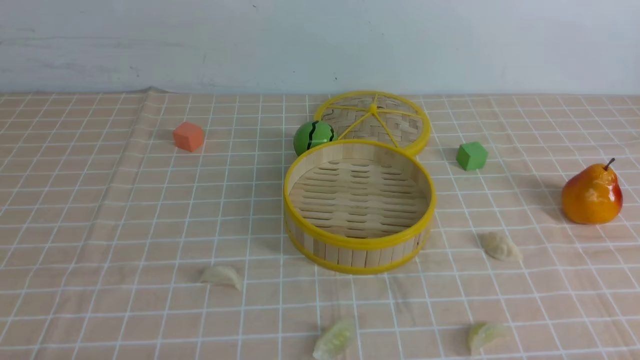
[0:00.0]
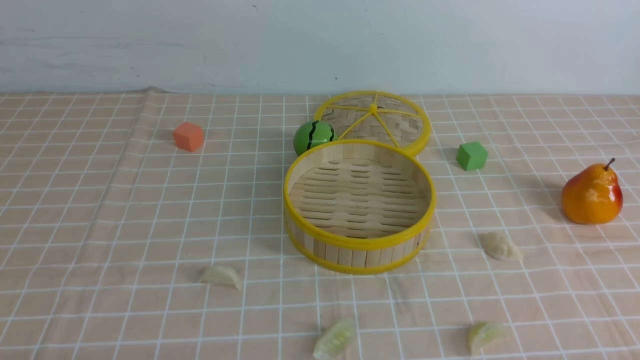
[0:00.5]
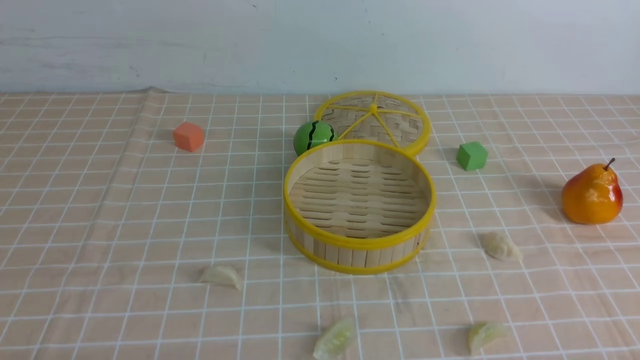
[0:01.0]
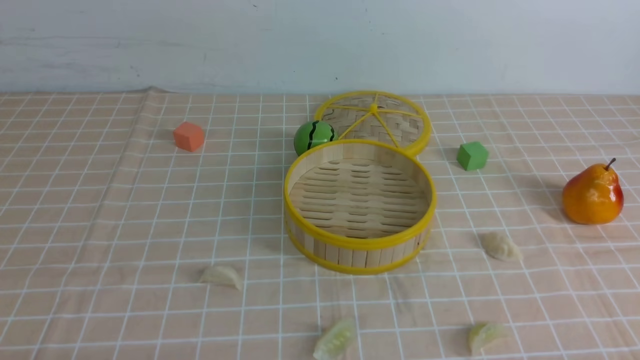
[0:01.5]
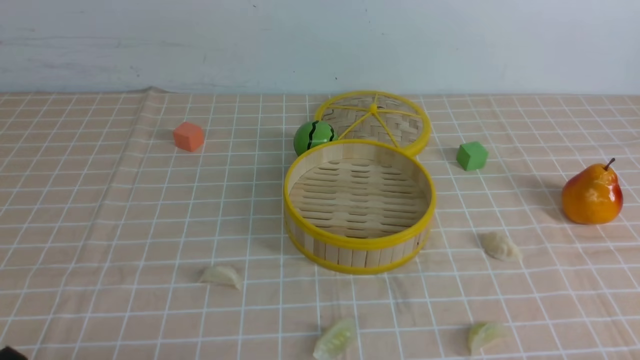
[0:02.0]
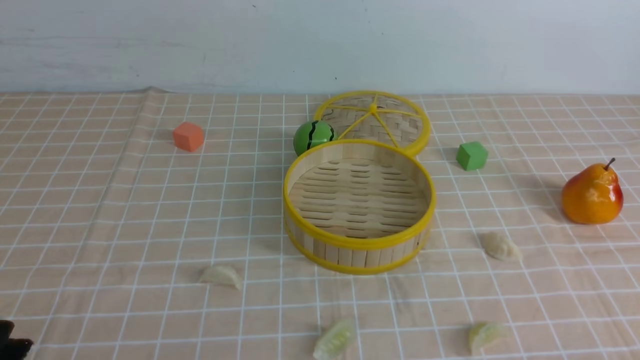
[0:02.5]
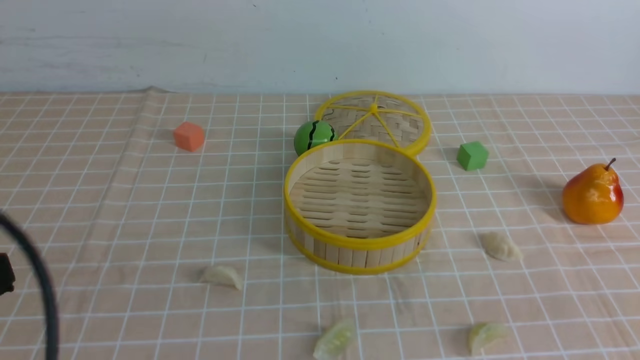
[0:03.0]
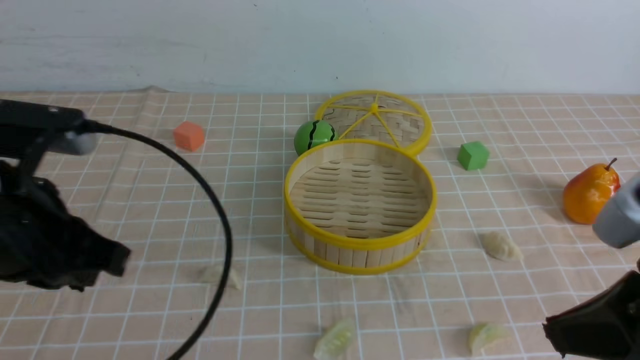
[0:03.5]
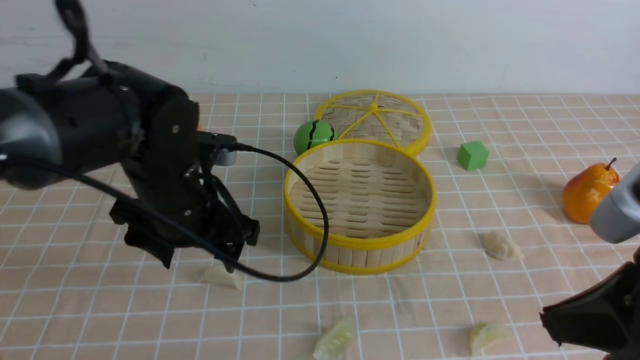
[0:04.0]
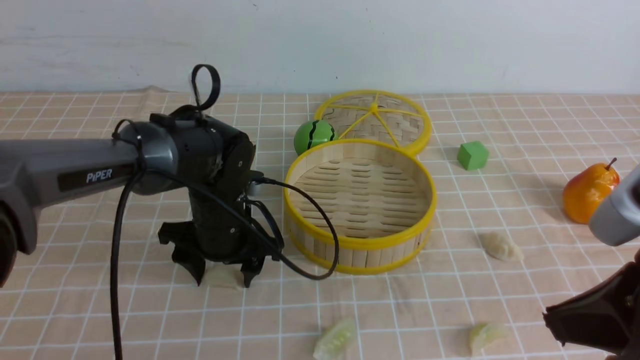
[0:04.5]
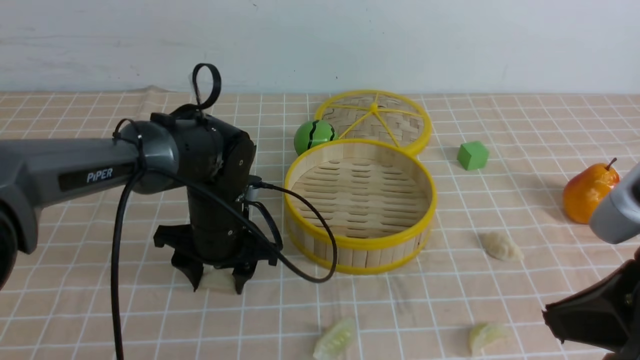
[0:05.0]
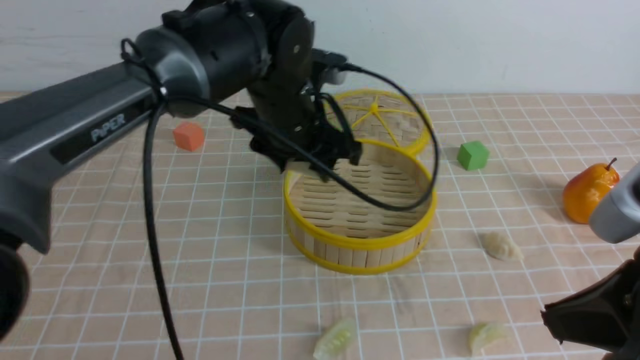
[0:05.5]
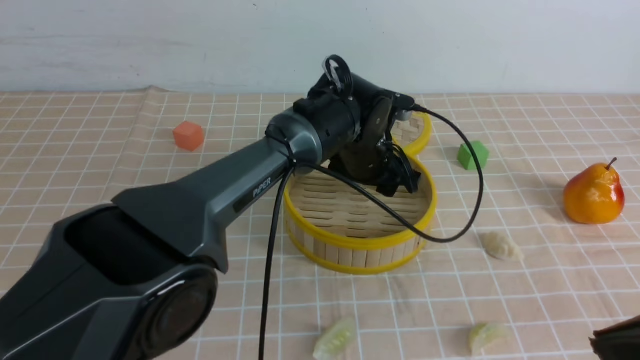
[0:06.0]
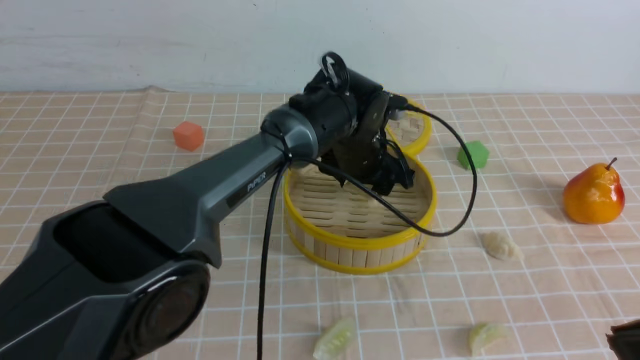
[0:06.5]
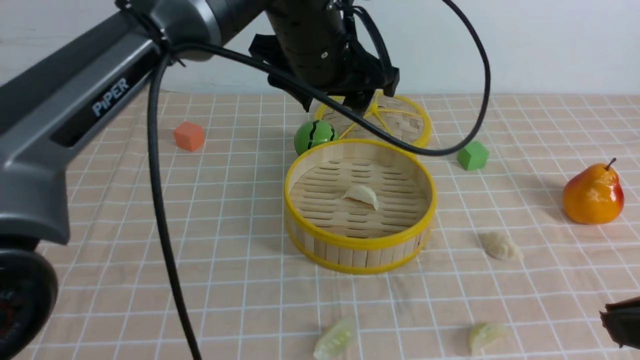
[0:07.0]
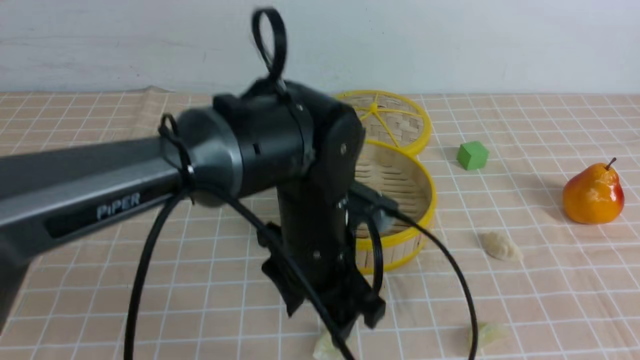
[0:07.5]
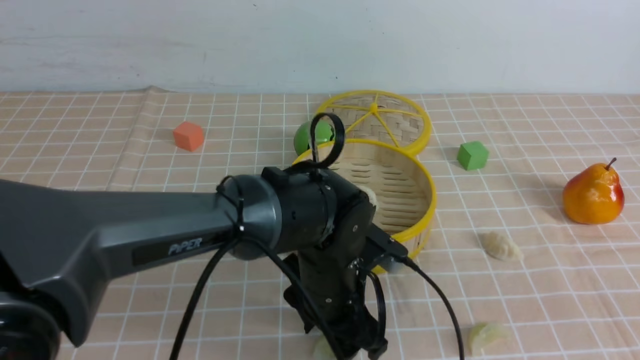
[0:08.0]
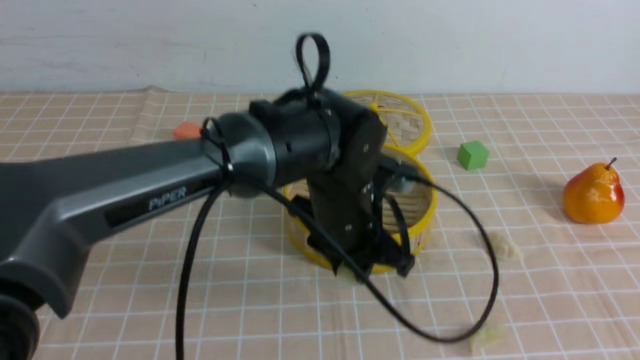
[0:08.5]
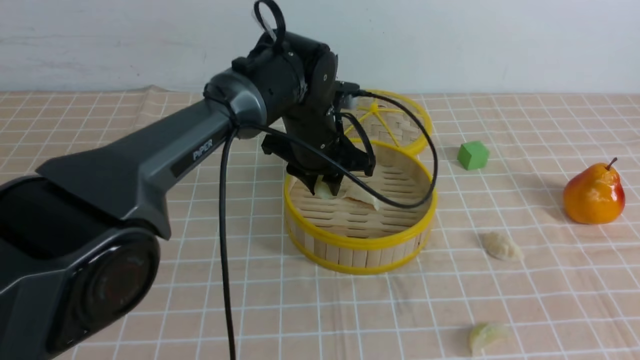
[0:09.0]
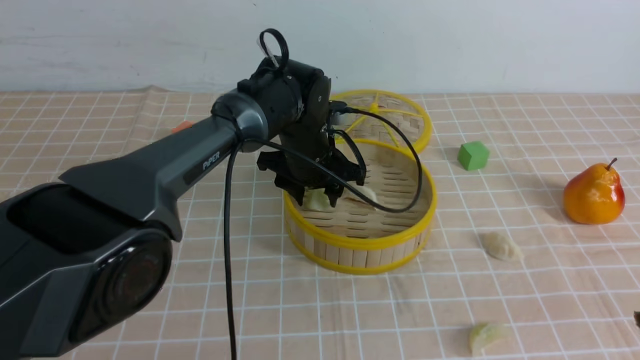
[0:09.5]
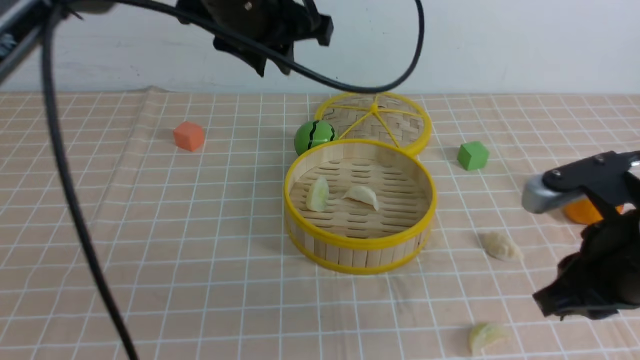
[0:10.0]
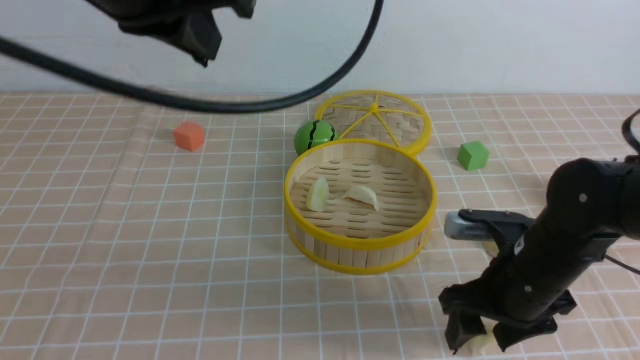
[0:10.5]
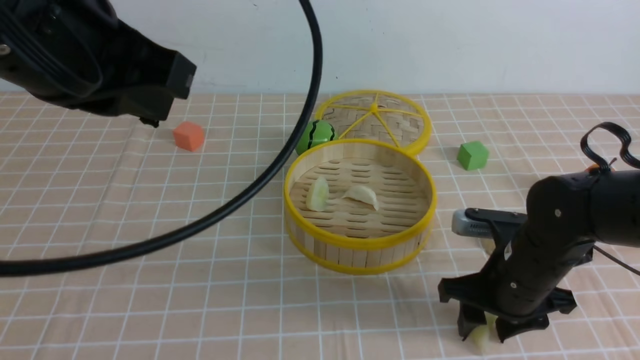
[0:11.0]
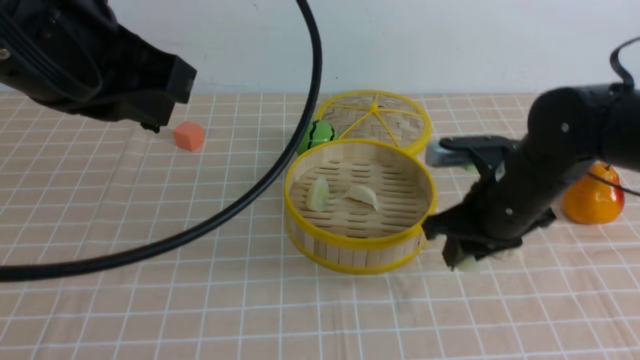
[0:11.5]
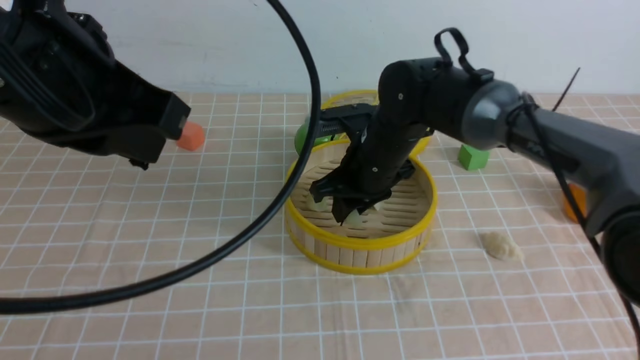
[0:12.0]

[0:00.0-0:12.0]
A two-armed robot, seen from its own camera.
Task of the whole recording: put the dumplings into the steamer on the table with the brown tablecloth.
Step, 0:00.0 to 0:04.5: use the left arm to grab a dumpling.
Step, 0:05.0 to 0:06.5: use the left arm to put the dumpling into the steamer.
Step, 0:07.0 to 0:08.0: use the left arm to grab a dumpling.
Step, 0:08.5 to 0:09.5: use the left arm to put the dumpling into the steamer.
Step, 0:10.0 to 0:11.0: use the right arm to grab a dumpling.
0:02.0 to 0:04.0: The right gripper goes about 20 cm upward, forward and to the left, and closes up; the left gripper moves forward and to the right, some 30 cm, and opens.
0:04.0 to 0:06.0: The left gripper moves to the right and forward, about 20 cm.
0:06.0 to 0:08.0: The left gripper shifts roughly 15 cm backward, and reaches approximately 15 cm upward, then returns.
0:08.0 to 0:10.0: The left gripper goes some 25 cm upward, and closes; the right gripper goes roughly 15 cm forward and downward.
0:10.0 to 0:12.0: The right gripper heads forward and to the left, covering some 25 cm, and opens and closes again; the left gripper travels backward and to the left by roughly 20 cm, and closes its fingers.

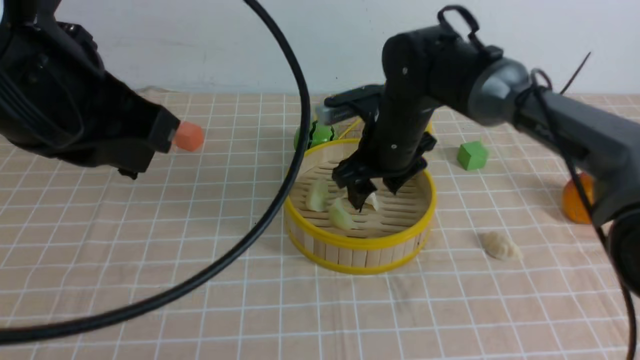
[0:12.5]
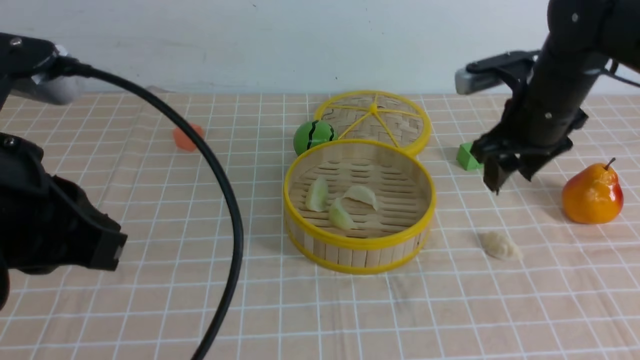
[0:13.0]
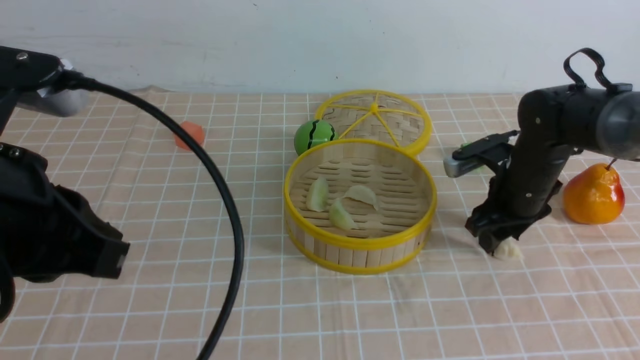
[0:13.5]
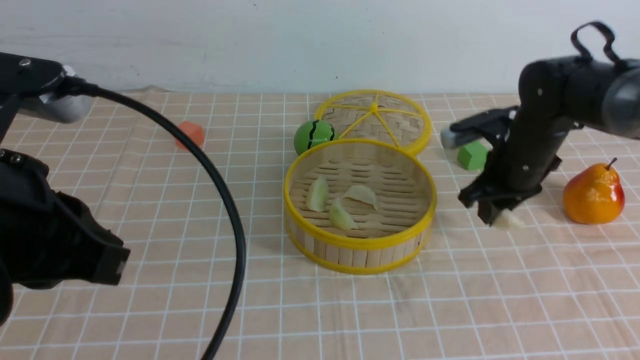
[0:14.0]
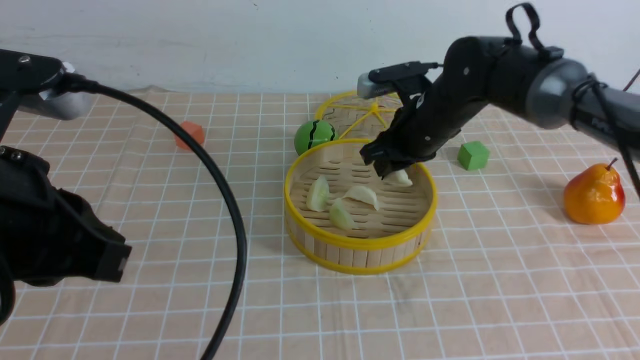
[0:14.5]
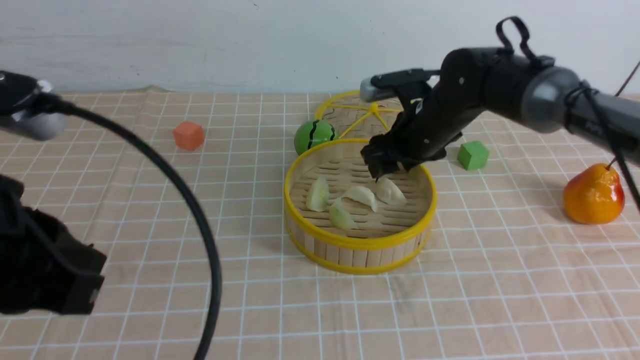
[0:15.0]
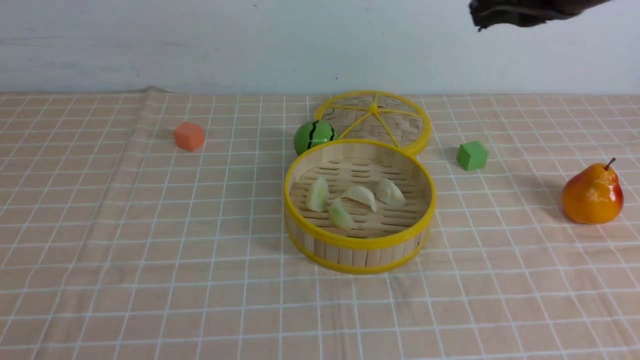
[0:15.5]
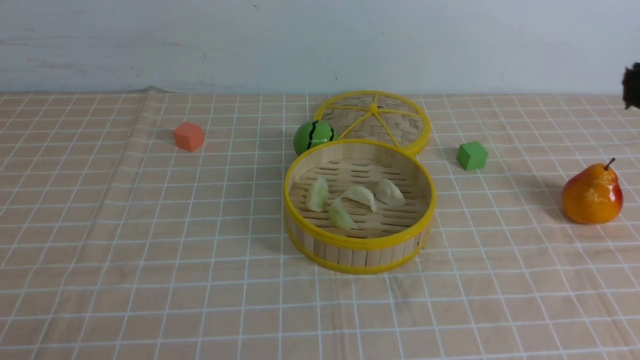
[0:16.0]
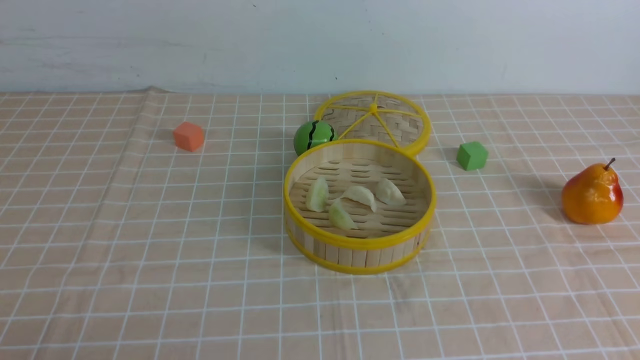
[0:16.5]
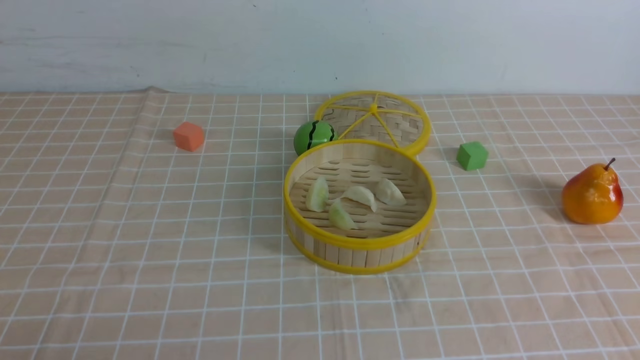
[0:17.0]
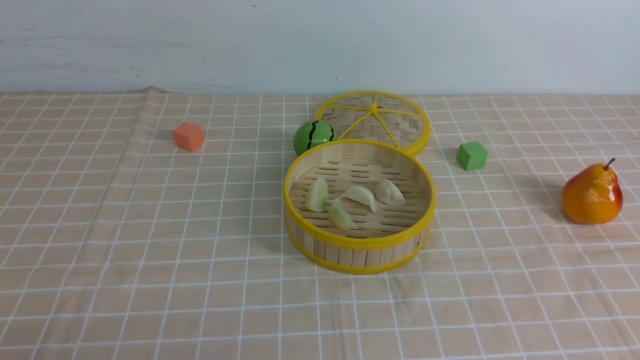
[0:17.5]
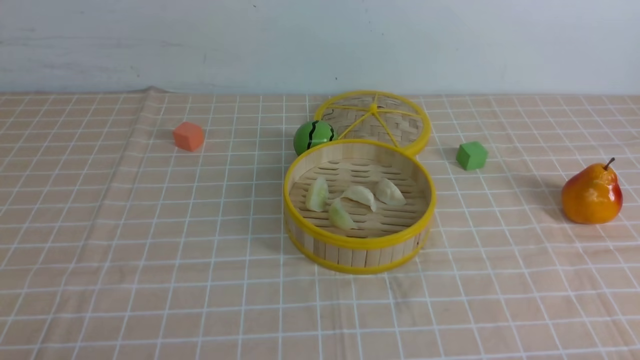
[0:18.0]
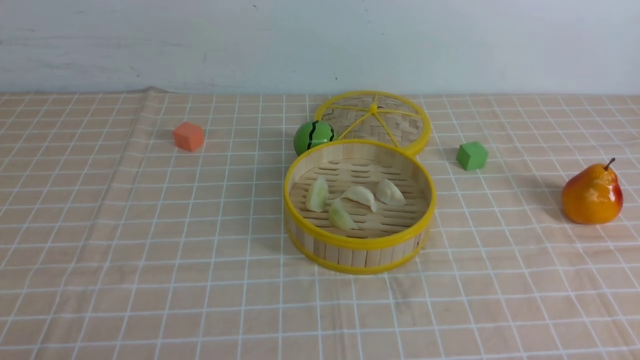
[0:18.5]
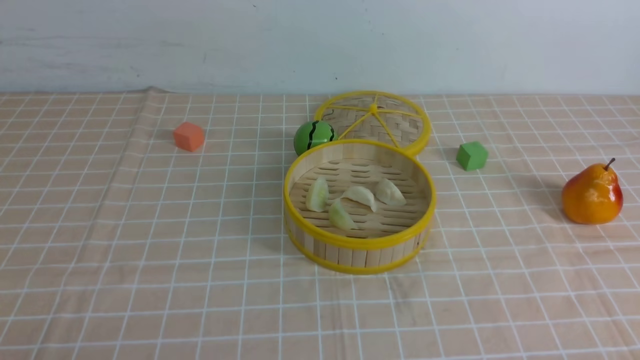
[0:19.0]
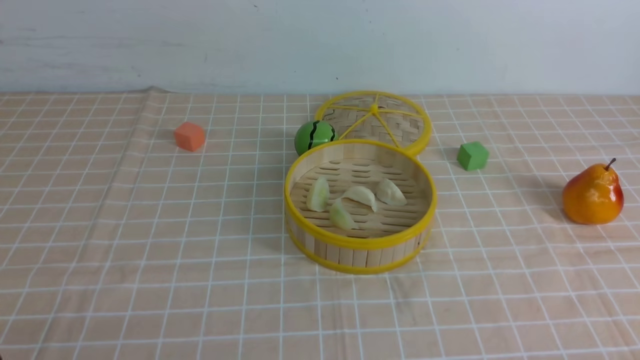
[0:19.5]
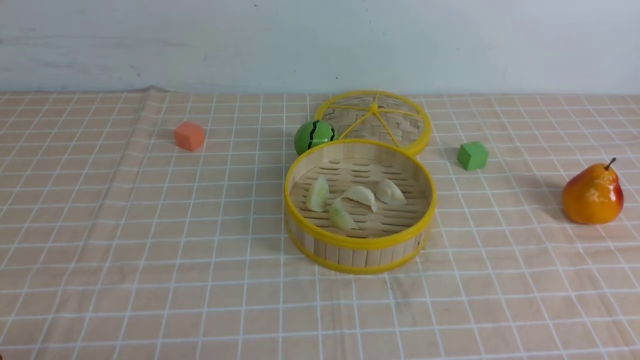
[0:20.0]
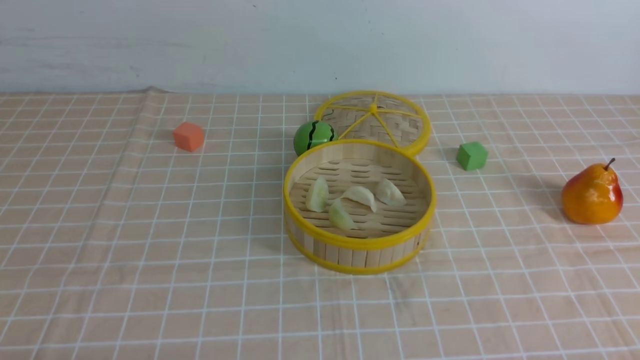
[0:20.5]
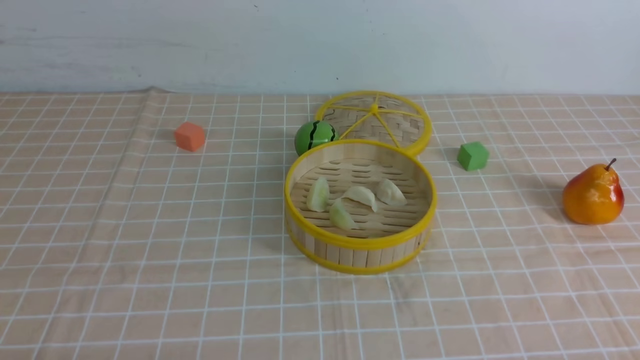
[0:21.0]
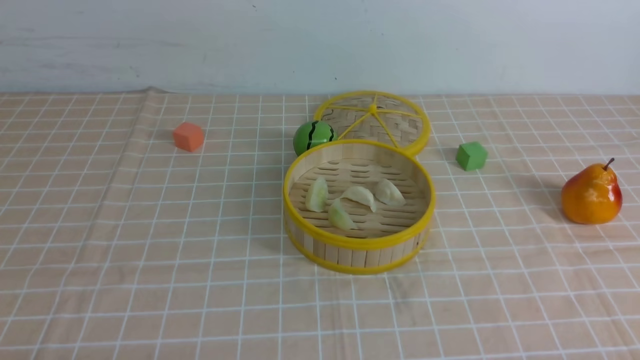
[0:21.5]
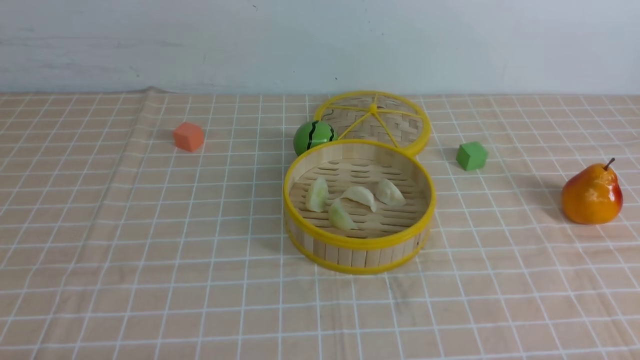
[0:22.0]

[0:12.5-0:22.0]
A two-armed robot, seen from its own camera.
Task of the whole recording: put the dumplings into the steamer on the table with the brown tablecloth.
Step, 0:14.0 to 0:15.0: use the right arm to put the dumpling into the steamer.
0:12.5 to 0:14.5: The right gripper moves roughly 15 cm to the right and comes back, and closes. Meanwhile the left gripper changes place by approximately 5 cm.
0:14.5 to 0:16.5: The right gripper travels backward and upward by roughly 40 cm, and closes its fingers; the left gripper shifts approximately 20 cm backward, downward and to the left.
